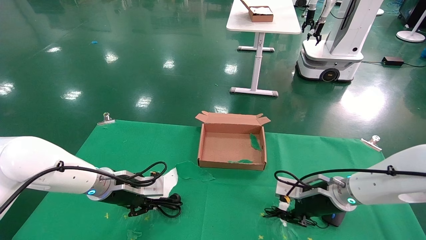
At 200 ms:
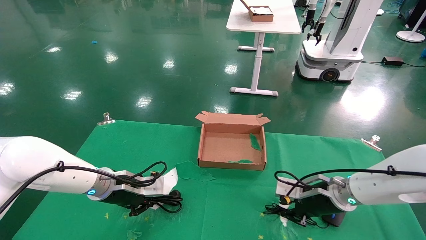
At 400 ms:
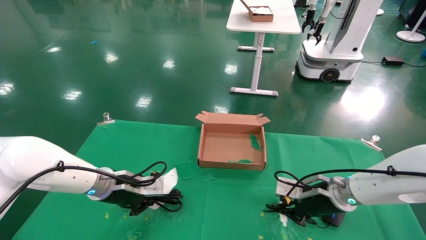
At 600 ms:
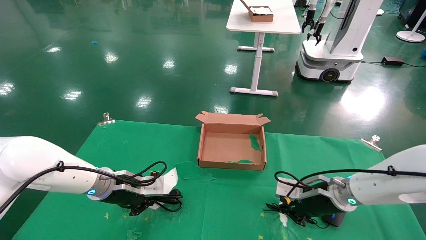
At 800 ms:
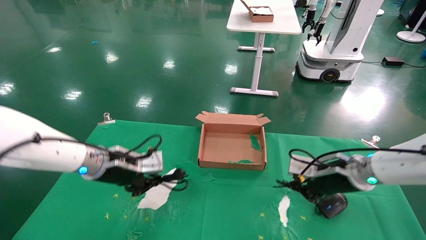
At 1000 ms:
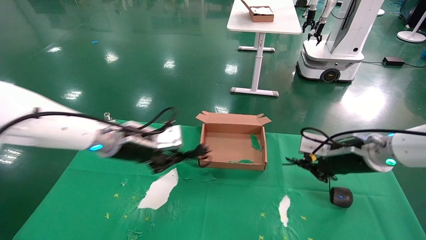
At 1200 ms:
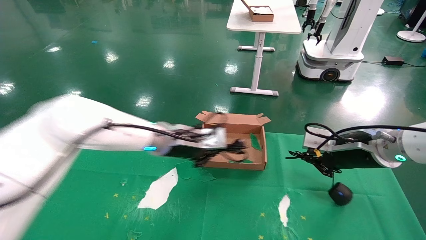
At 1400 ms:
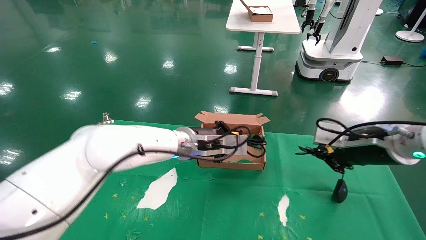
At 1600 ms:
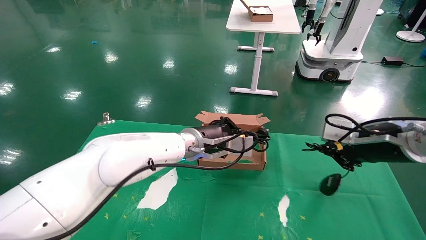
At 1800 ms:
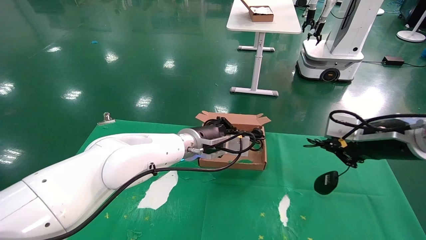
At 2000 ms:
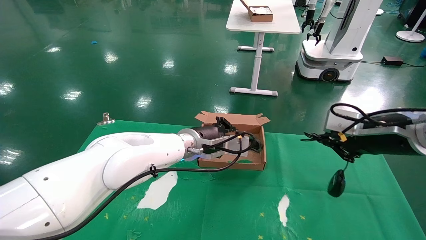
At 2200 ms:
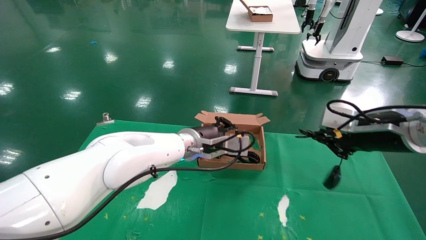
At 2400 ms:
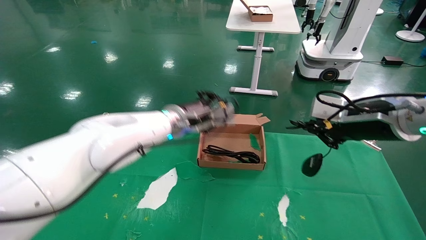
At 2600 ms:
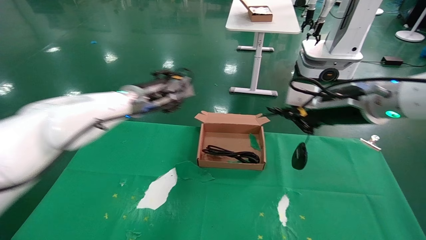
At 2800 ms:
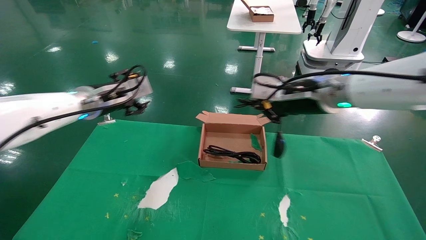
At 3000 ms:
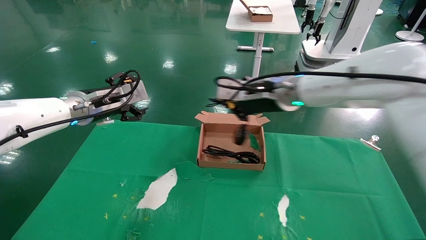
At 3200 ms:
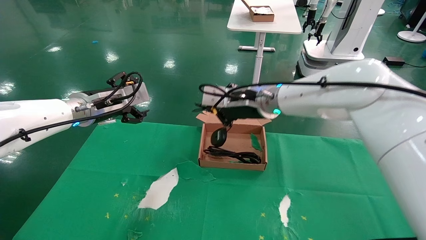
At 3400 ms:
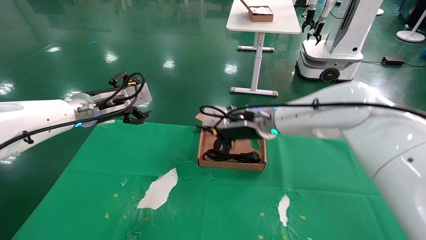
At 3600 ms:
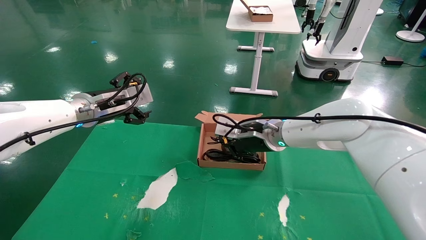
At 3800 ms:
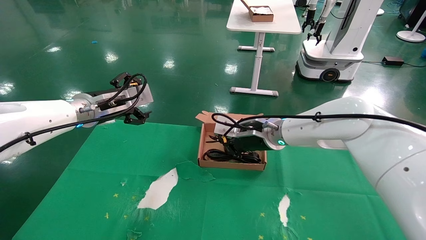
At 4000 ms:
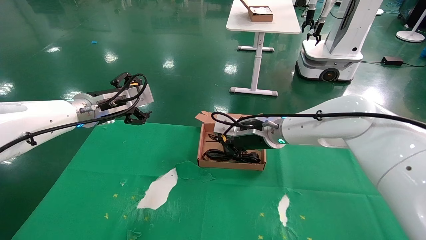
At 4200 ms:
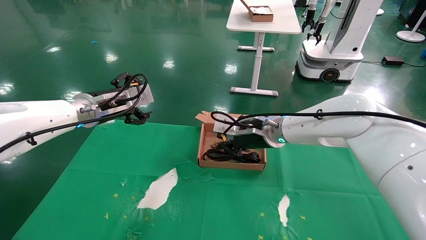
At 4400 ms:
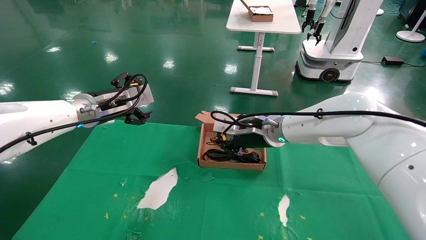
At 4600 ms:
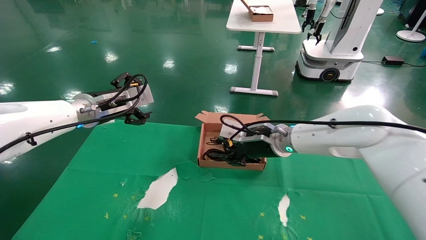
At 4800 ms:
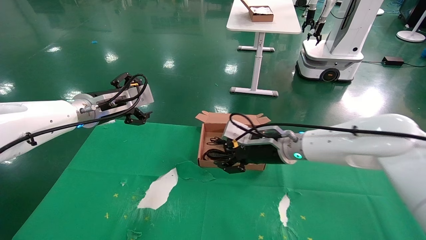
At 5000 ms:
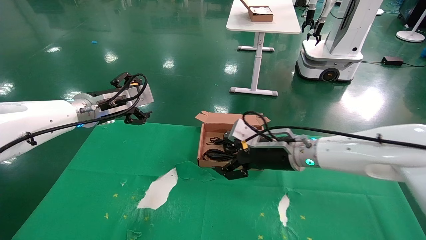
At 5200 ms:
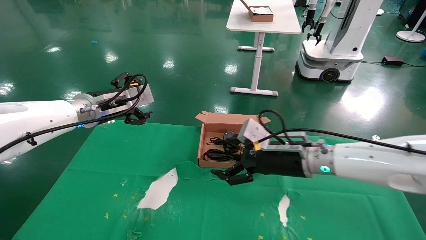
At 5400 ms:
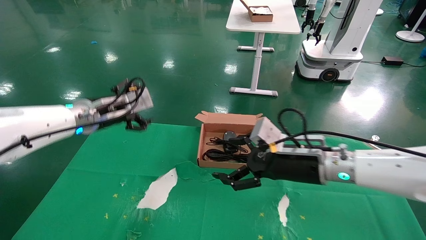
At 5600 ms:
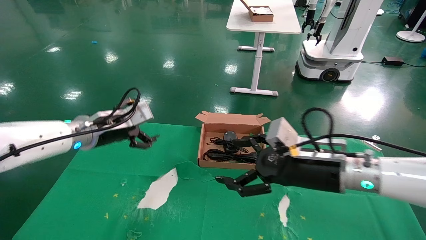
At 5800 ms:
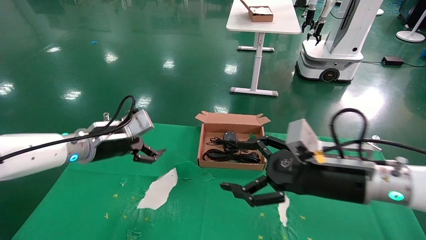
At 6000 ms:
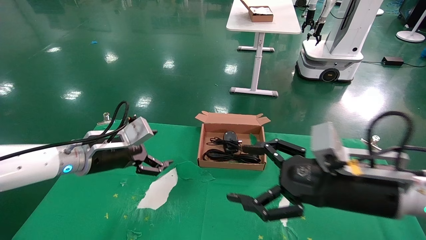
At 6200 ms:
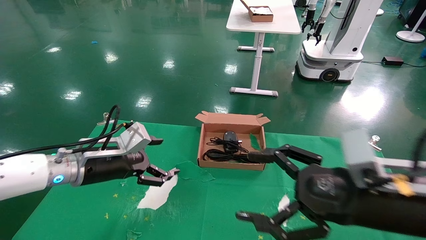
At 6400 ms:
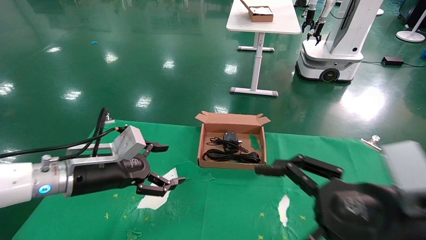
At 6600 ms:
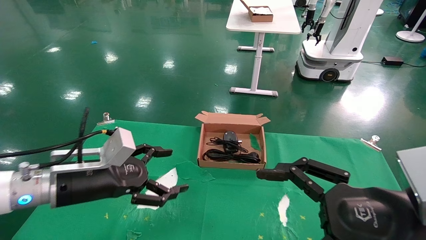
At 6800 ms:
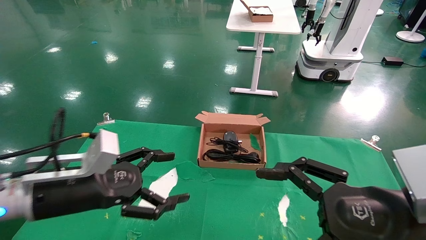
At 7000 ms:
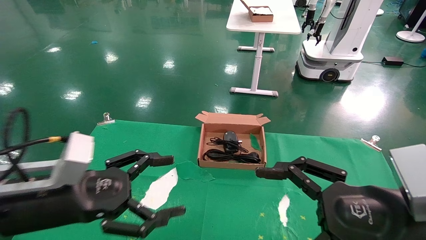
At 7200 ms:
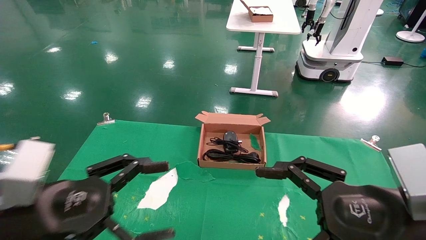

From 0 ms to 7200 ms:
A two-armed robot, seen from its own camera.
Step, from 1200 ms to 4800 ms: Place the mouse and power cord into the box.
From 0 ms to 1400 ms: The left gripper travels to the right and upward by approximately 20 cm, and closes; the right gripper heads upward, backward and to the right, covering roughly 15 cm, and closes up.
From 1400 ms to 2800 ms: Both grippers move to the left and upward, about 15 cm. The left gripper opens its fingers.
From 2800 ms to 4400 ms: The left gripper opens up; the right gripper shifts some 15 cm downward, to the left and forward.
From 4400 ms to 5800 ms: The right gripper heads backward and to the right, covering about 20 cm, and opens. The left gripper moves downward, approximately 5 cm.
From 5800 ms to 7200 ms: The left gripper heads backward, covering about 20 cm. Meanwhile the right gripper shifts approximately 10 cm backward.
